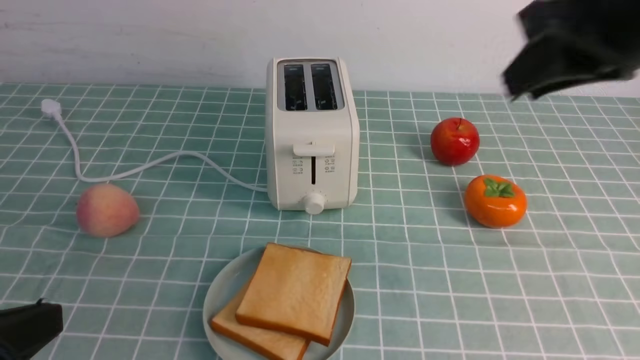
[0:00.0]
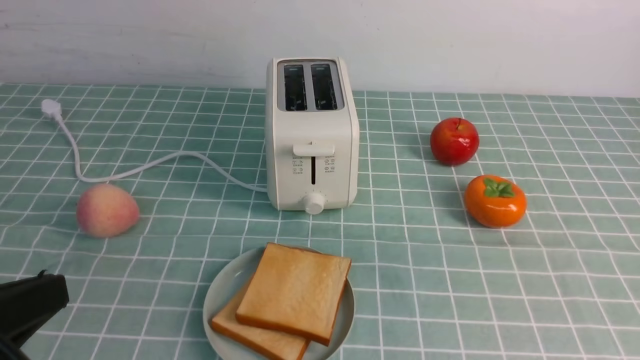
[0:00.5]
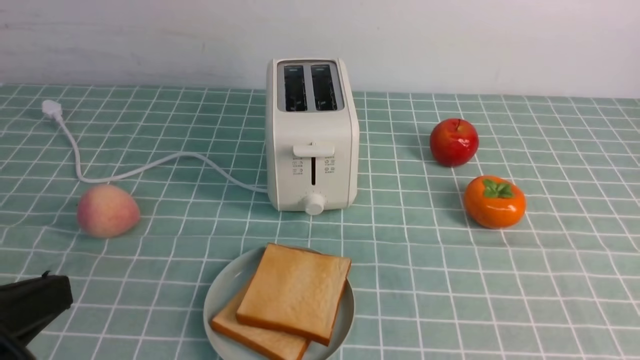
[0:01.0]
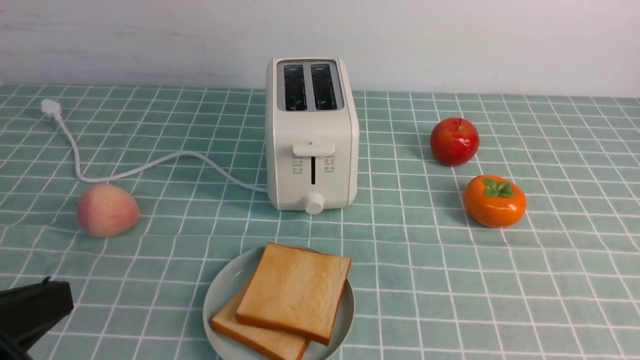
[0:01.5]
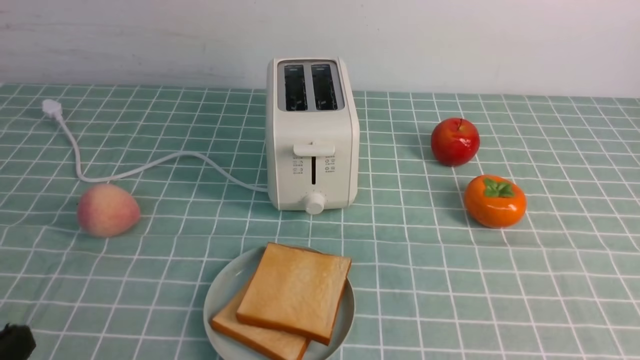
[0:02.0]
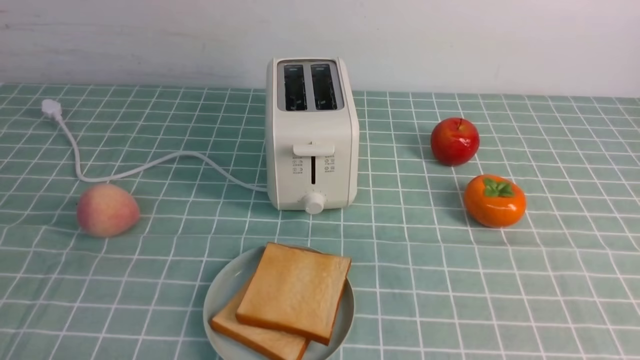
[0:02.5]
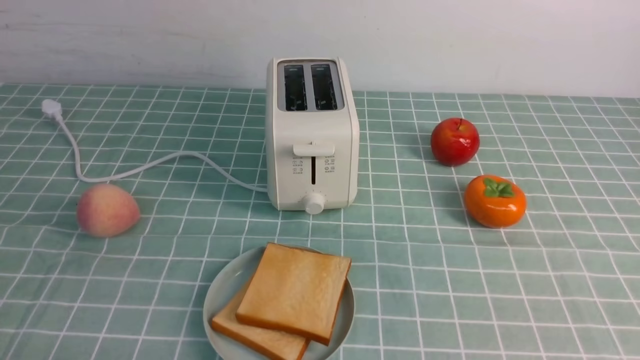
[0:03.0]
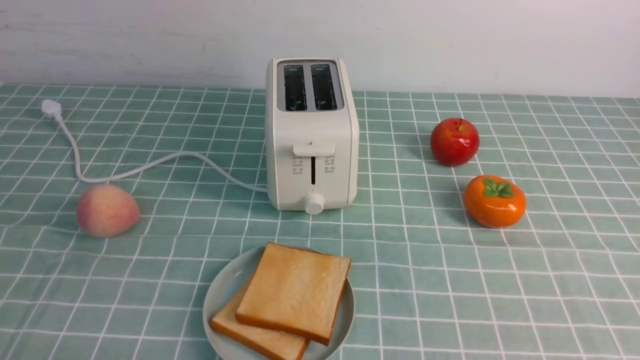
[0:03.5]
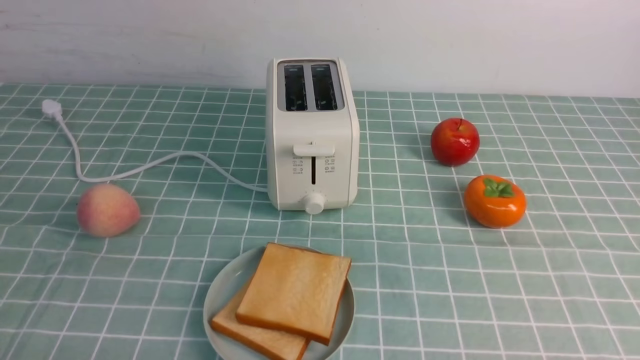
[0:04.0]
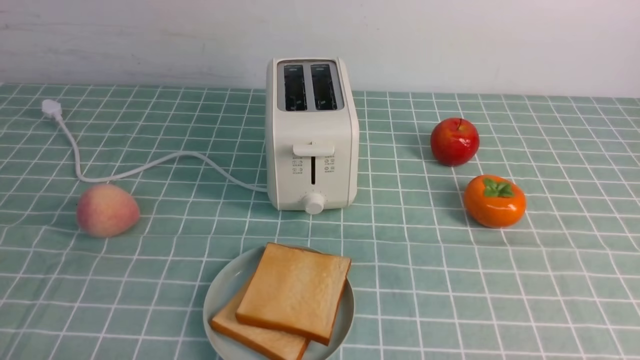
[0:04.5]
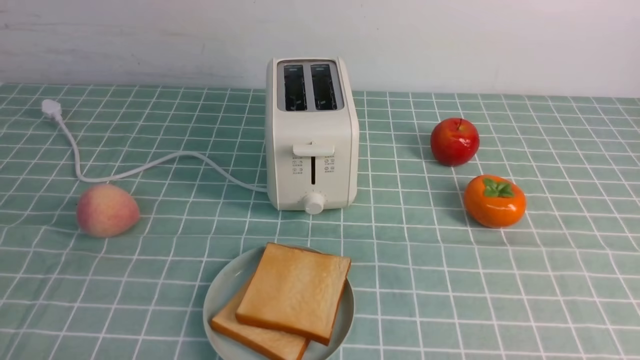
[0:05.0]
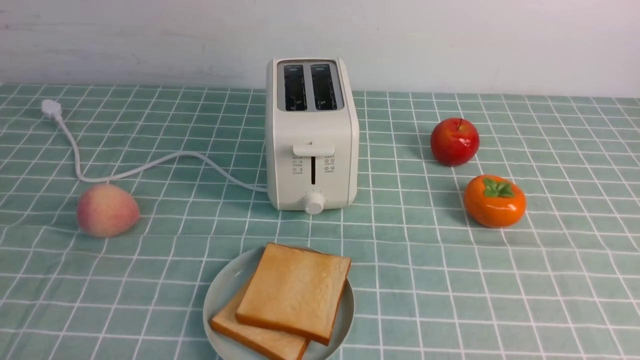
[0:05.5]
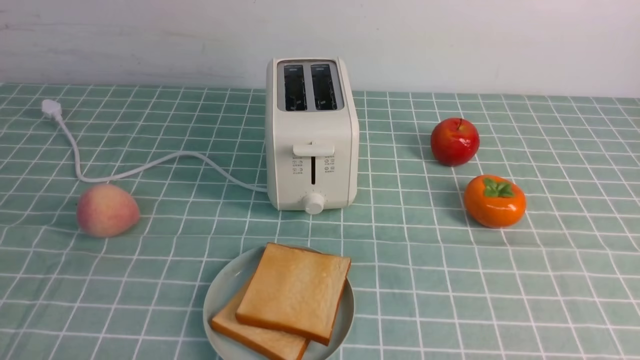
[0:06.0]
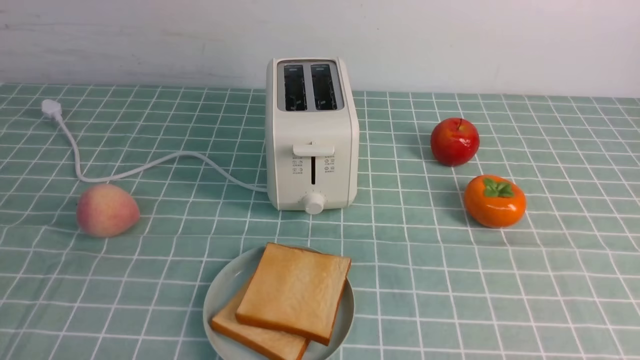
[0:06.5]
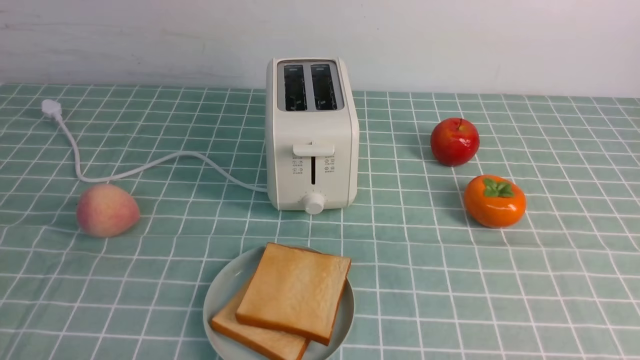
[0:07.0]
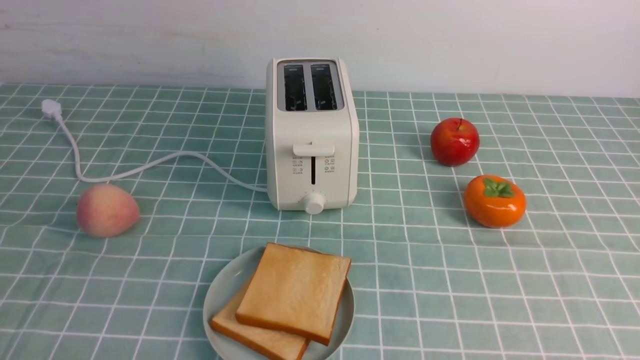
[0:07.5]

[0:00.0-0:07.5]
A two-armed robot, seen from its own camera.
Task of the whole recording: take toasted bread from bread machine on blue coffee table place on plate.
0:00.0 to 0:02.0: The left gripper shifts some 10 cm downward. Meanwhile the right gripper heads backward, downward and to the right, covering approximately 30 cm.
0:05.5 to 0:07.5: Both grippers stay put.
